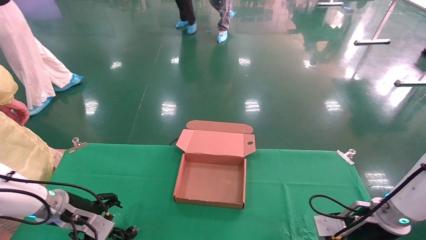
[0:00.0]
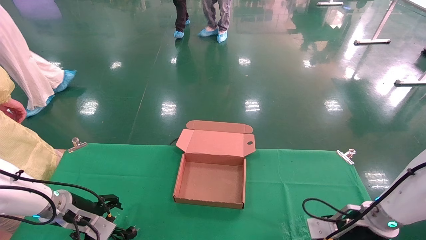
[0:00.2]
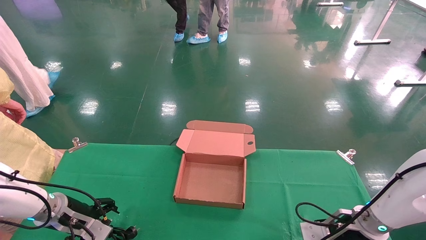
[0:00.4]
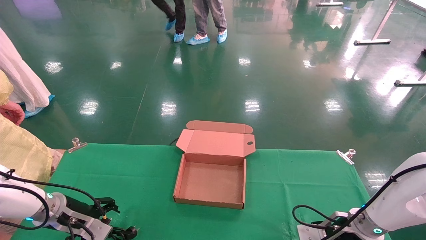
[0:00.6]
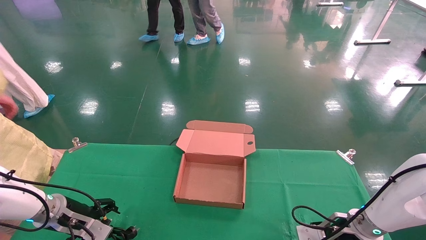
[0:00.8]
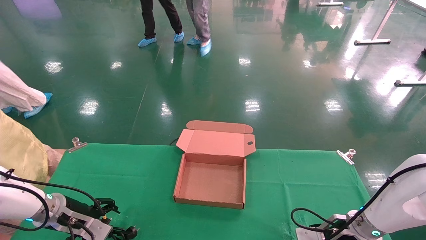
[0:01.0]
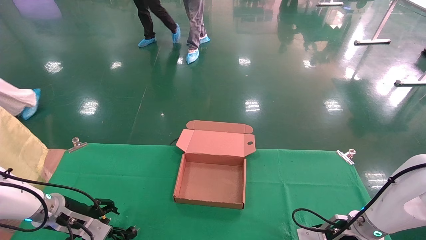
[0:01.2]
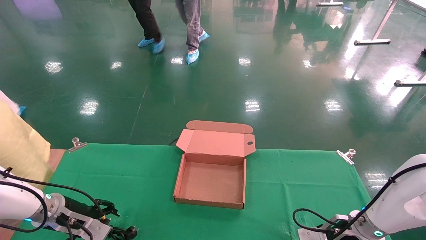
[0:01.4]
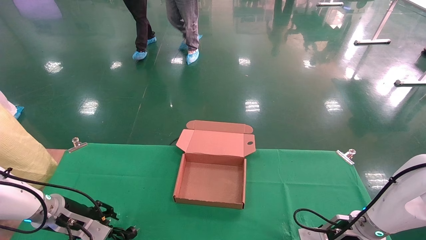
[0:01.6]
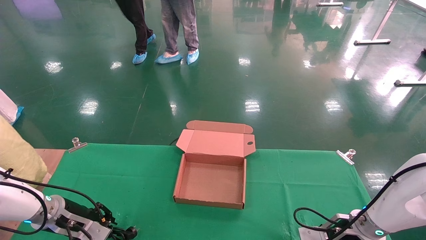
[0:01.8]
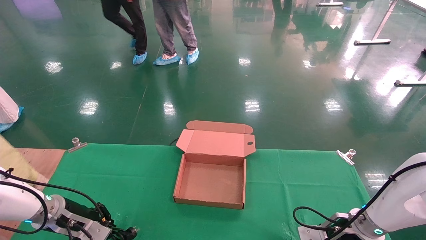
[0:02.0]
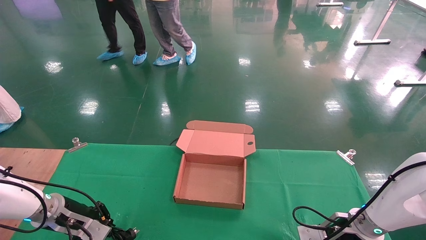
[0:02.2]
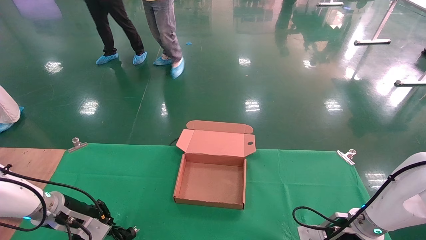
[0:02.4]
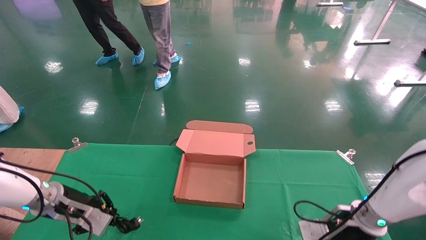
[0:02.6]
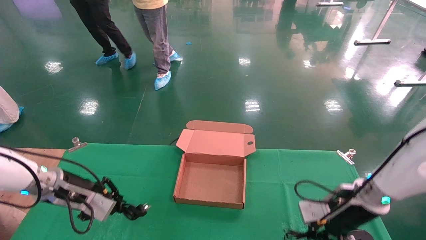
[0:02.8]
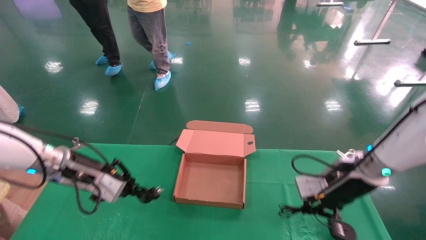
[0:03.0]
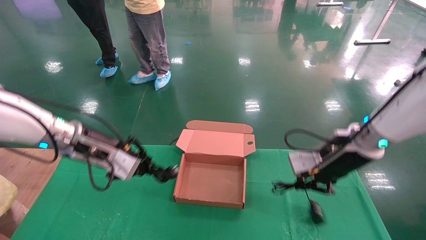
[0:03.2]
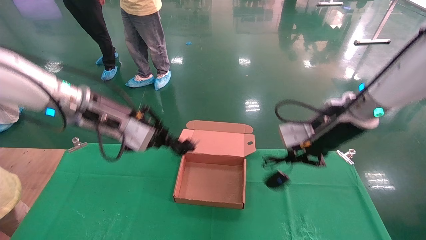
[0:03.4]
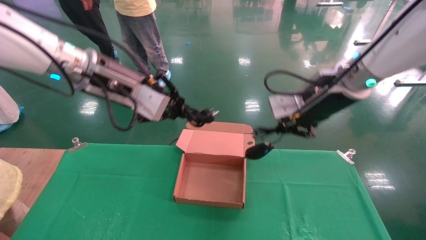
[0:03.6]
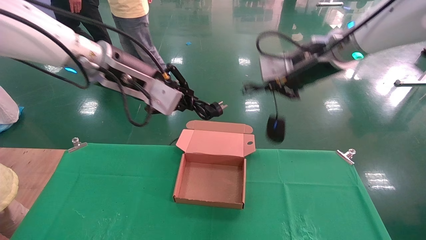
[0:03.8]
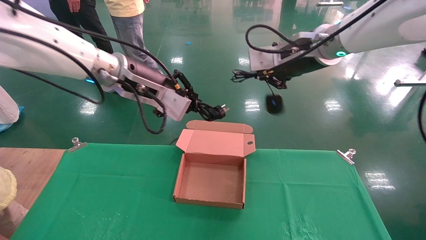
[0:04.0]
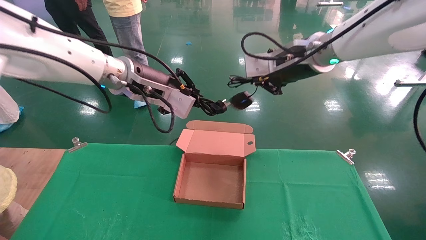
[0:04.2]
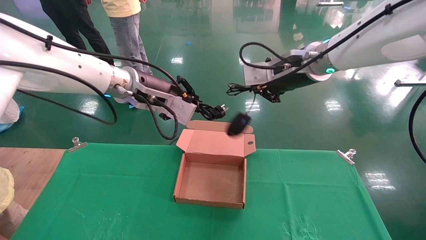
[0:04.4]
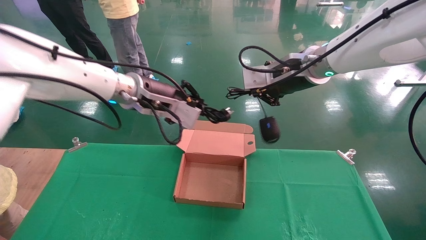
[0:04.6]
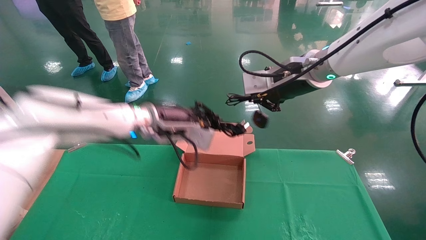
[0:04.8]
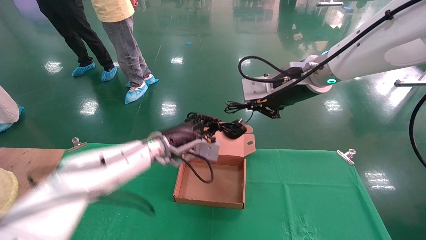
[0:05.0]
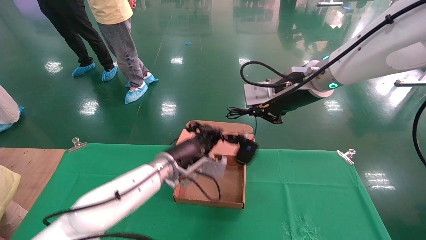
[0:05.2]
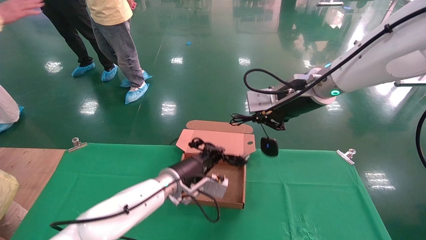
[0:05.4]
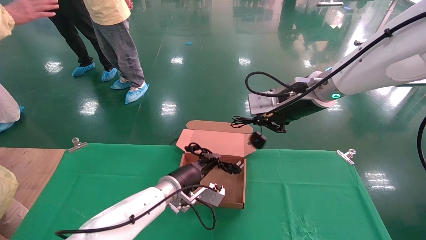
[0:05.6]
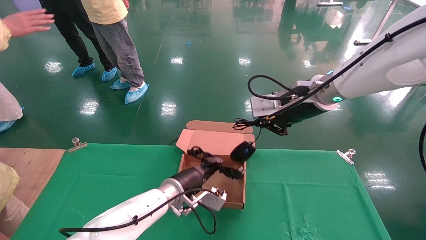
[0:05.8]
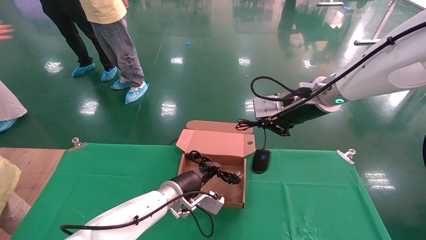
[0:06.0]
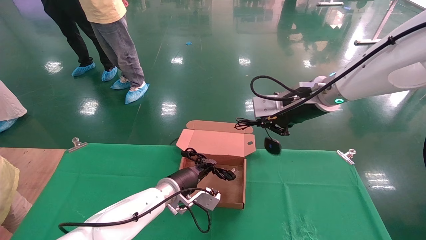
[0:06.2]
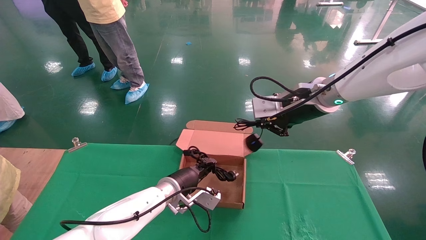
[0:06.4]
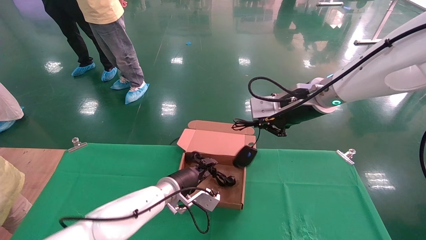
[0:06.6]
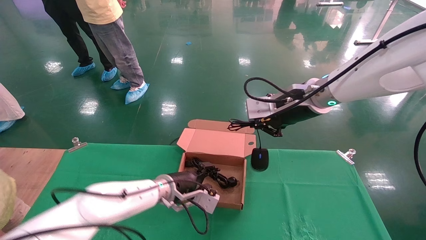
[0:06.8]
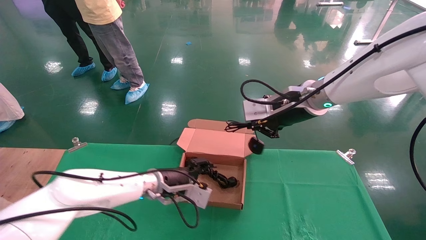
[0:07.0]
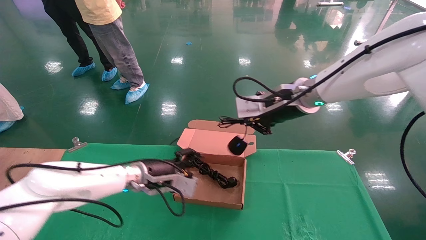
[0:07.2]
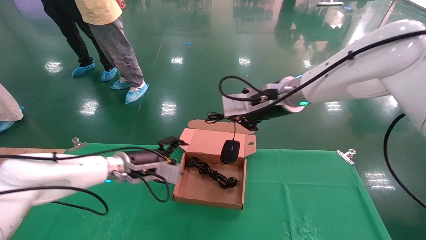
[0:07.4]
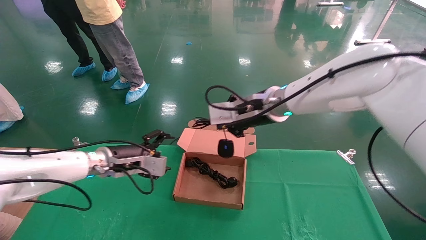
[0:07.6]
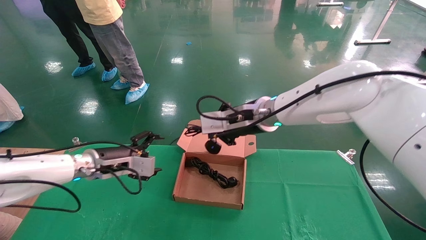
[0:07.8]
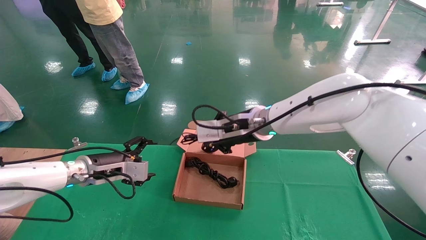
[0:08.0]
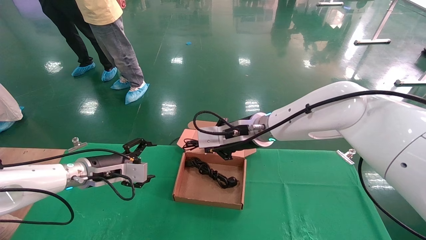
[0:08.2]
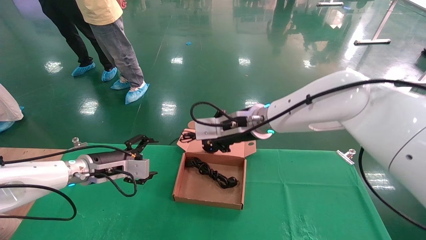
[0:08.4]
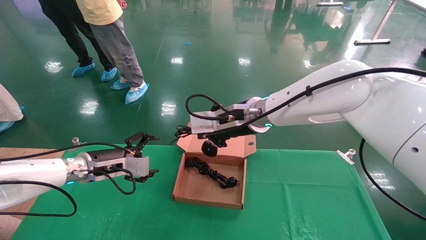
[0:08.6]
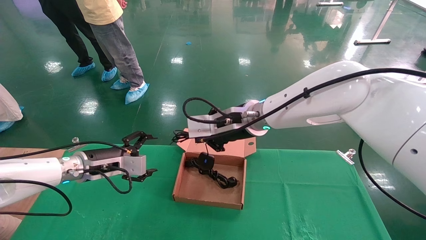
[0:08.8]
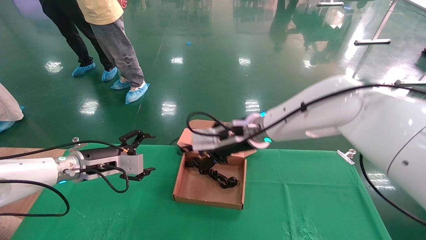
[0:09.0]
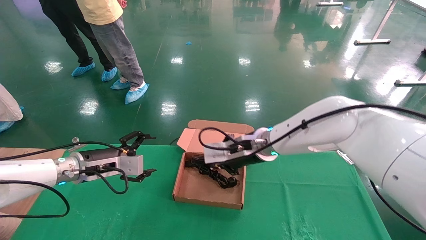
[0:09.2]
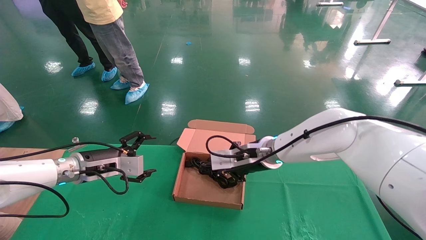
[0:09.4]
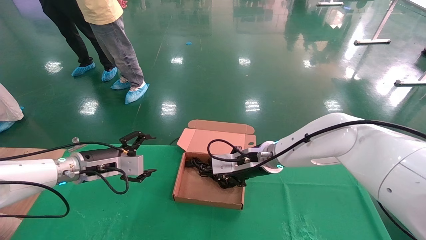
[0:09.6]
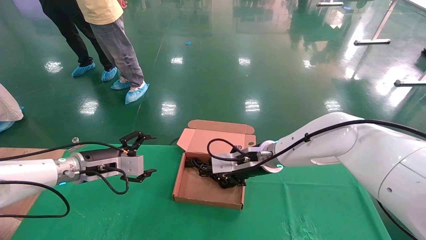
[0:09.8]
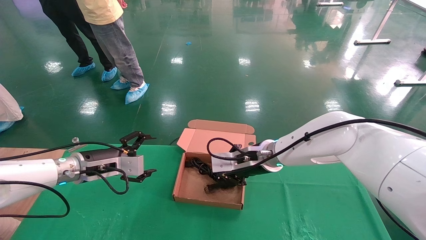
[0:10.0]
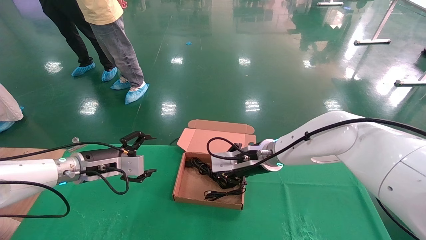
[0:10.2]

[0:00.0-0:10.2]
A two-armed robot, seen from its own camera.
Step, 0:00.0 to 0:02.0: Grab and lift both the mouse and power cord from the accessory packaging area at the same time.
0:00.0 to 0:01.4: The right gripper ends up about 5 cm from where it was.
0:01.4 to 0:03.0: The right gripper is displaced upward by roughly 15 cm, and closes. The left gripper is displaced upward and to the right by some 15 cm, and closes its fingers.
0:03.0 to 0:04.4: The right gripper travels upward and to the left by roughly 25 cm, while the left gripper shifts some 20 cm to the right and upward.
0:04.4 to 0:05.8: The left gripper moves downward, approximately 25 cm, while the right gripper shifts about 5 cm downward.
0:05.8 to 0:07.2: The left gripper moves to the left, approximately 10 cm, and opens up.
0:07.2 to 0:08.8: The left gripper travels to the left by some 10 cm. Meanwhile the right gripper travels to the left and downward by some 10 cm.
0:08.8 to 0:10.2: The right gripper moves downward, approximately 10 cm.

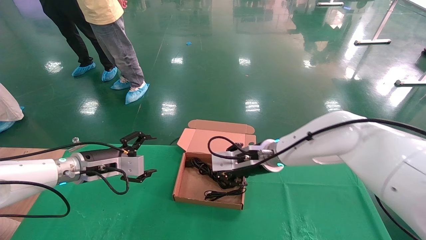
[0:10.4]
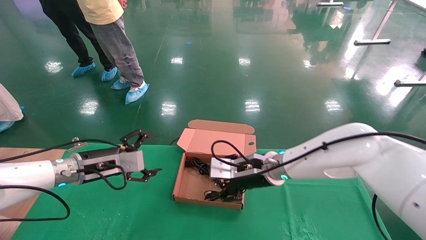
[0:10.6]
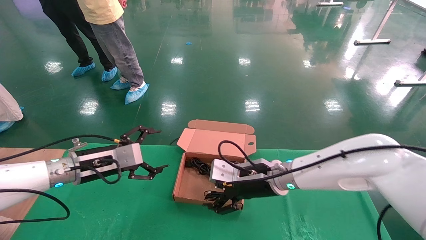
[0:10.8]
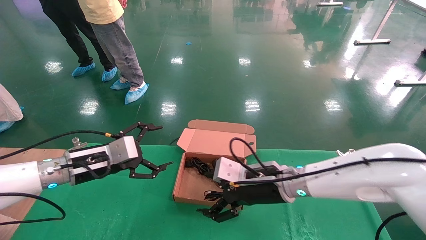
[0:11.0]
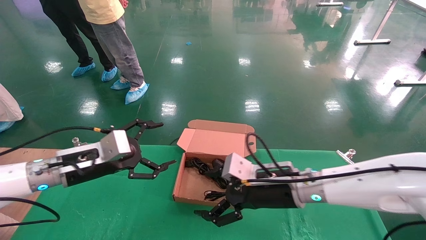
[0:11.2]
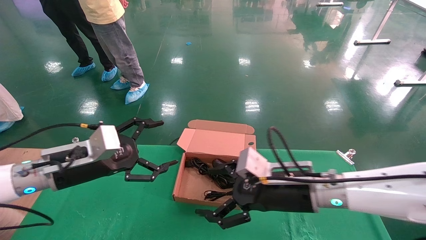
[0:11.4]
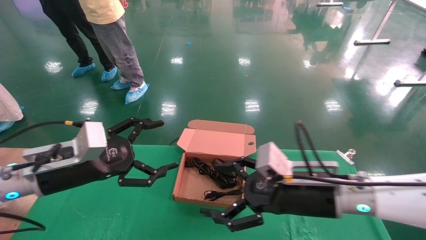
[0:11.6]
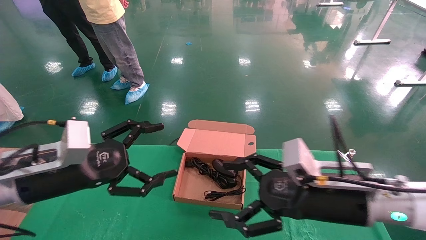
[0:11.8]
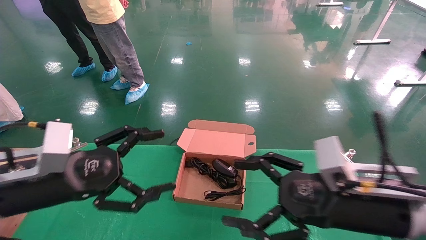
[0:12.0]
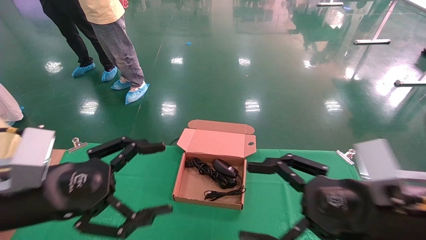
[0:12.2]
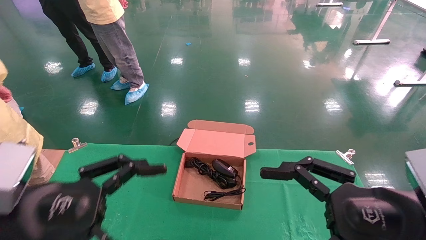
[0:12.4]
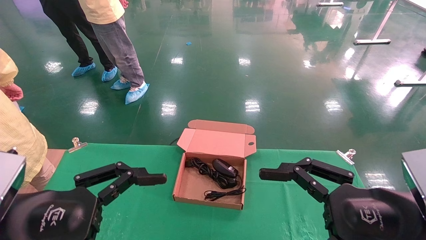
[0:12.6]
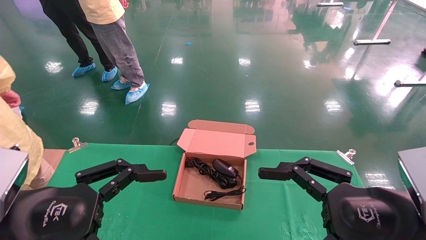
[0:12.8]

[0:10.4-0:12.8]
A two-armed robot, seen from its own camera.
0:10.4 to 0:11.6: The right gripper heads backward and to the right, covering approximately 15 cm, and opens its fingers, while the left gripper heads backward and upward, covering some 15 cm.
0:11.6 to 0:12.8: The right gripper is displaced backward and to the right by some 15 cm. The left gripper moves backward, roughly 15 cm.

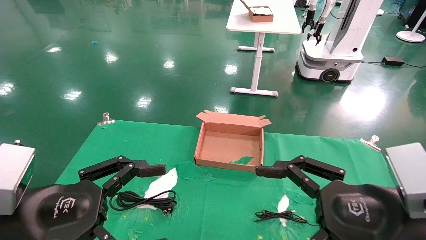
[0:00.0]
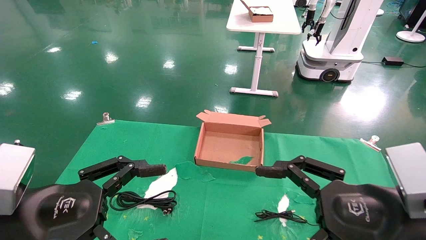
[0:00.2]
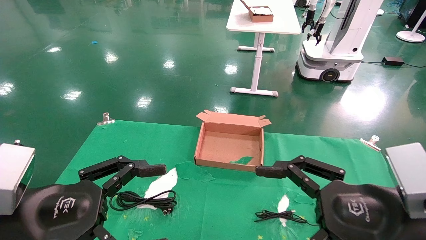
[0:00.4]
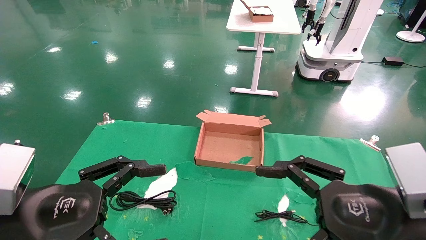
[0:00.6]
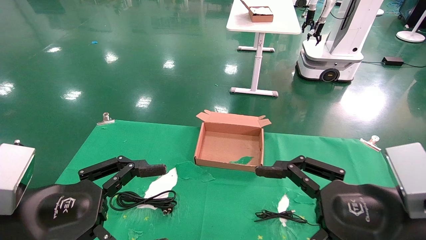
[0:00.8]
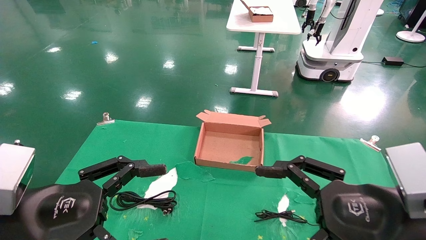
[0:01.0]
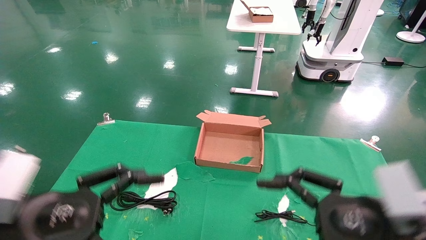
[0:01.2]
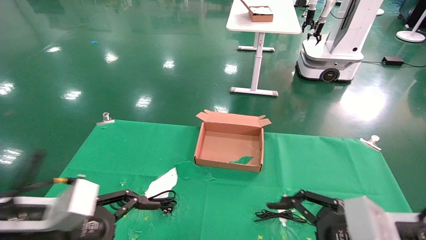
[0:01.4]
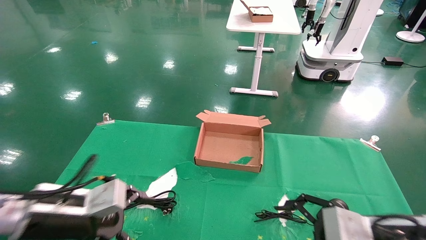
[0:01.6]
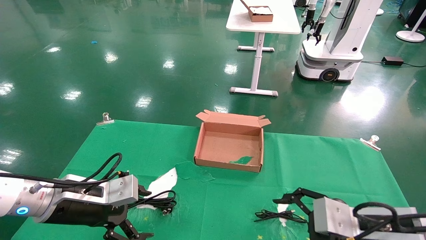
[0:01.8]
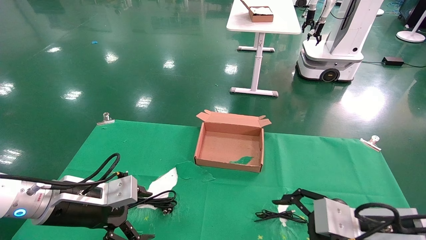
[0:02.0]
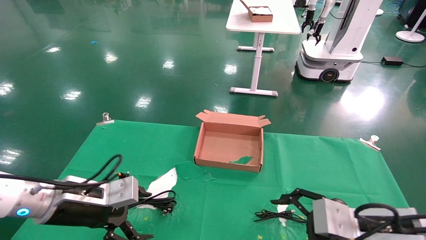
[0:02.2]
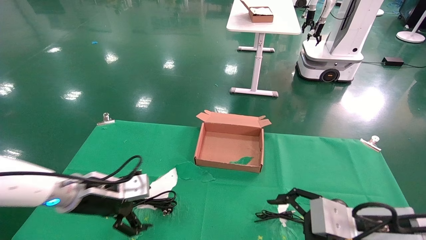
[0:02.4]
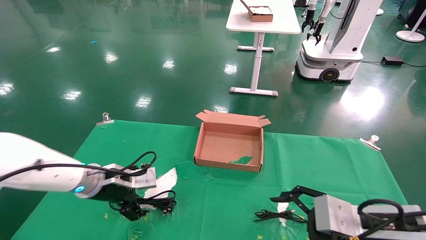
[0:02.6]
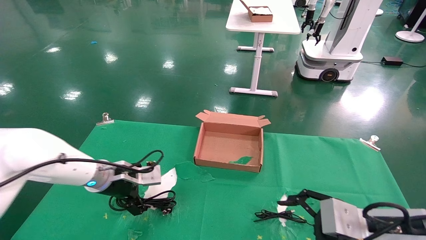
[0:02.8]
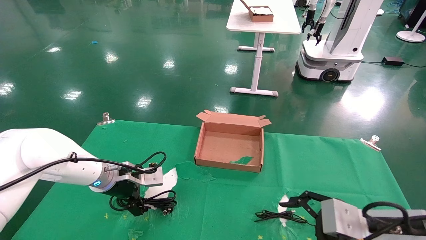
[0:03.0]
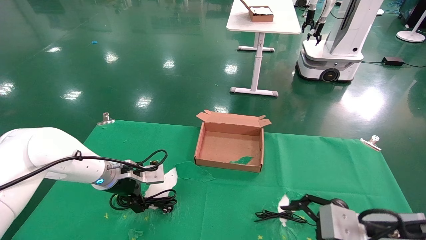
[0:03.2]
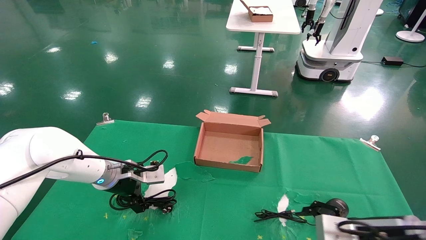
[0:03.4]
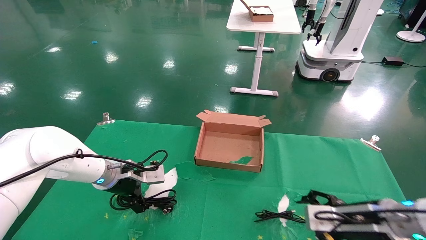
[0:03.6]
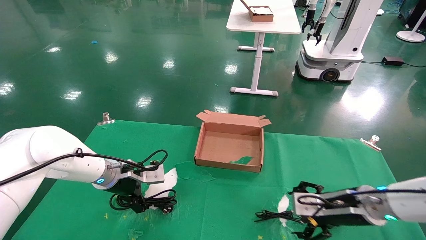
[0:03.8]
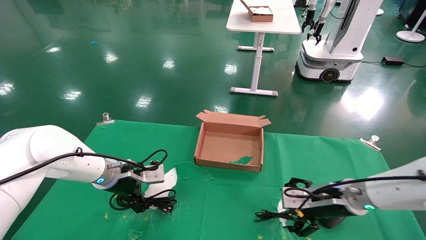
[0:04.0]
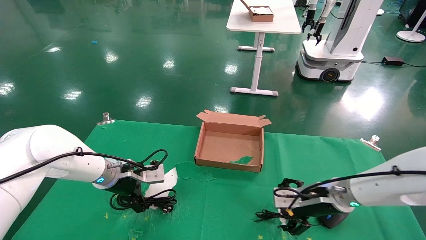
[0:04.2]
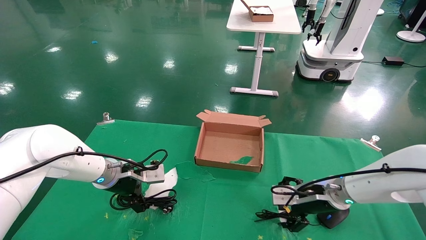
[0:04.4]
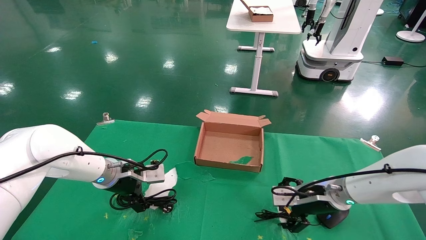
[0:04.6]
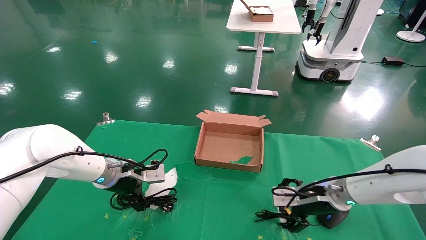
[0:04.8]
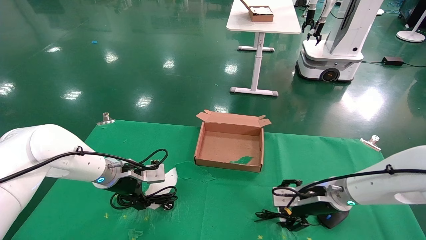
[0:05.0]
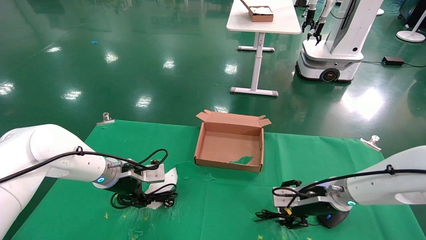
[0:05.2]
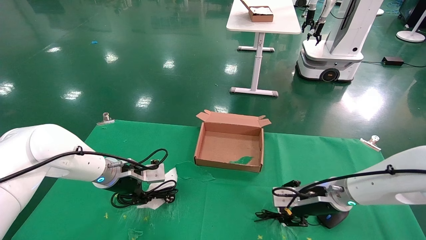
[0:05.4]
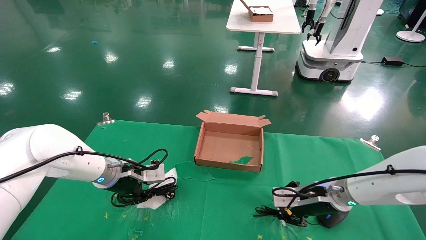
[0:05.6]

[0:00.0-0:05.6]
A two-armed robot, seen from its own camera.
0:00.0 to 0:01.4: The left gripper is displaced forward by approximately 5 cm, while the right gripper changes place by roughly 5 cm.
0:01.4 to 0:02.8: The left gripper shifts approximately 20 cm forward.
0:02.8 to 0:04.2: The right gripper shifts roughly 15 cm forward.
0:04.2 to 0:05.6: The right gripper closes its fingers, while the left gripper closes up.
